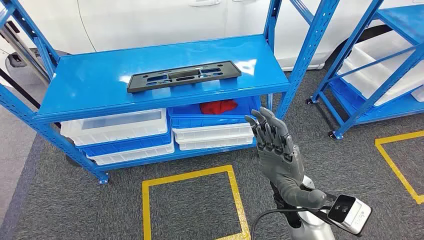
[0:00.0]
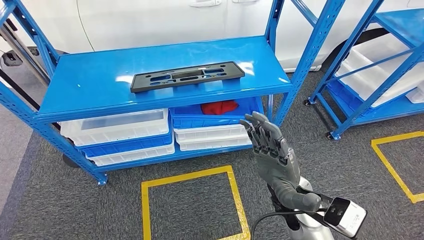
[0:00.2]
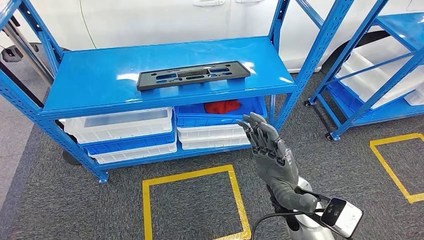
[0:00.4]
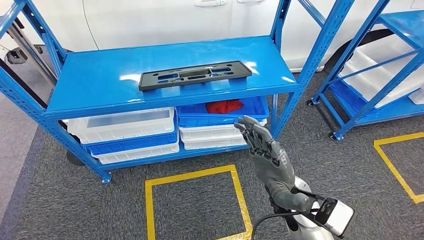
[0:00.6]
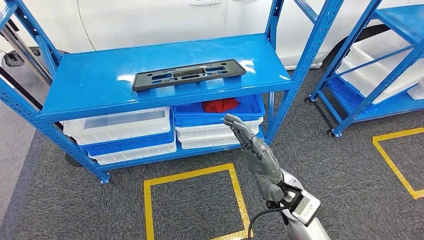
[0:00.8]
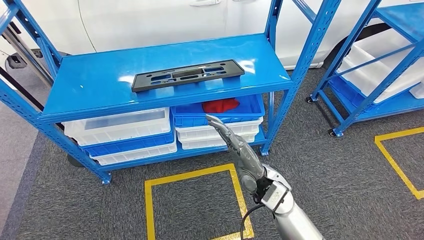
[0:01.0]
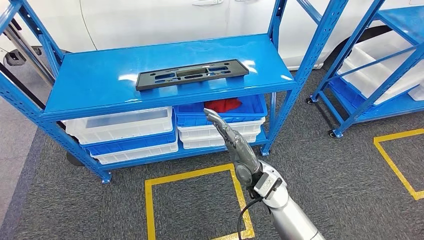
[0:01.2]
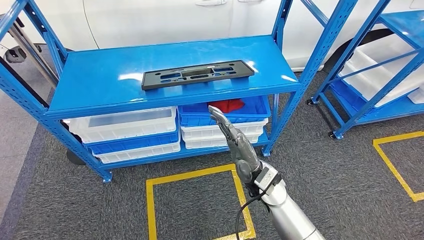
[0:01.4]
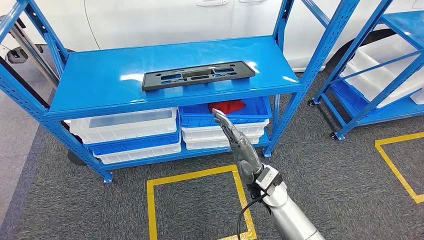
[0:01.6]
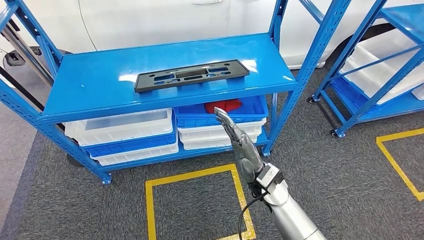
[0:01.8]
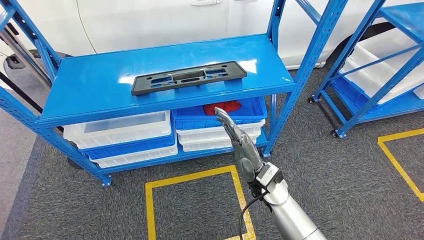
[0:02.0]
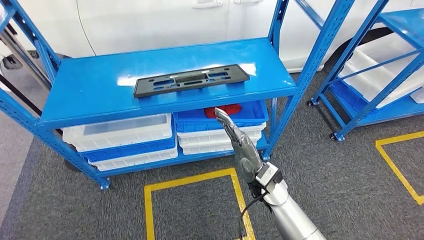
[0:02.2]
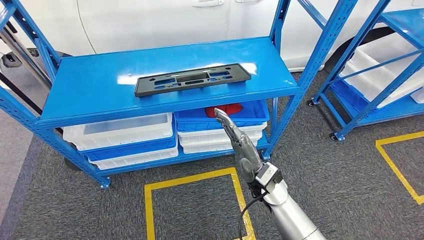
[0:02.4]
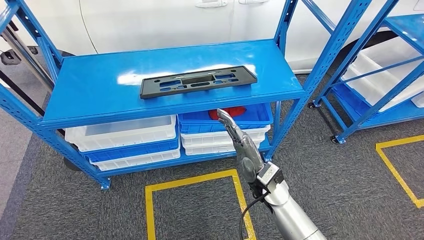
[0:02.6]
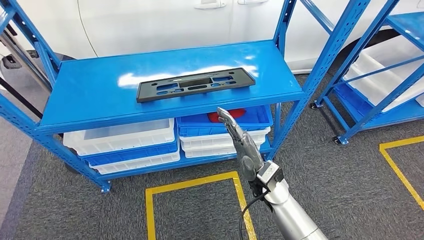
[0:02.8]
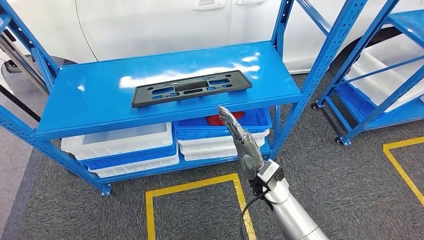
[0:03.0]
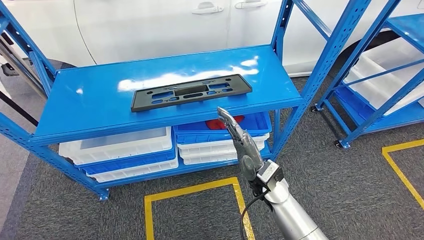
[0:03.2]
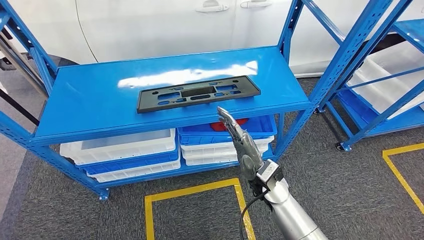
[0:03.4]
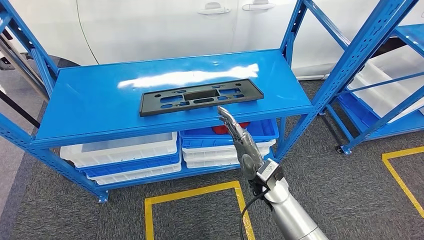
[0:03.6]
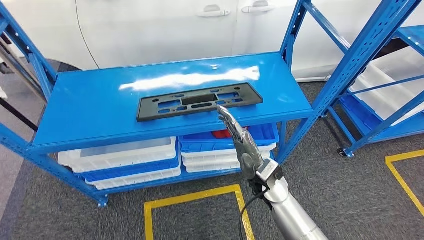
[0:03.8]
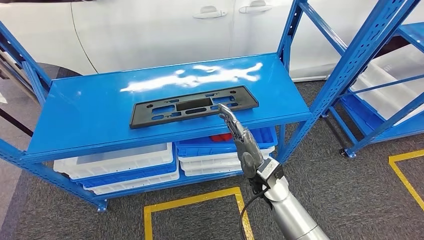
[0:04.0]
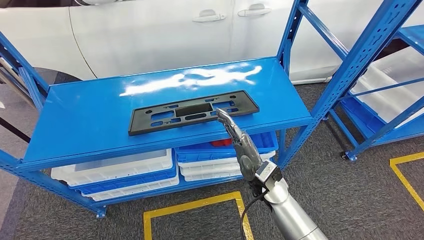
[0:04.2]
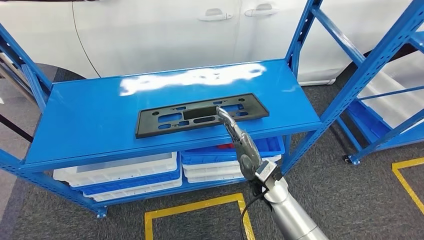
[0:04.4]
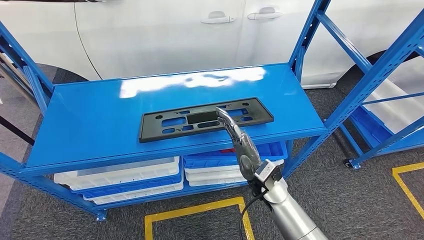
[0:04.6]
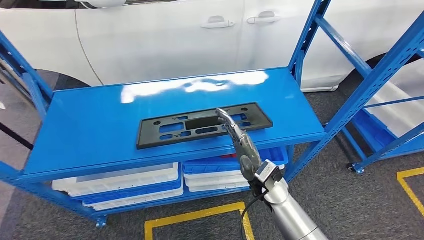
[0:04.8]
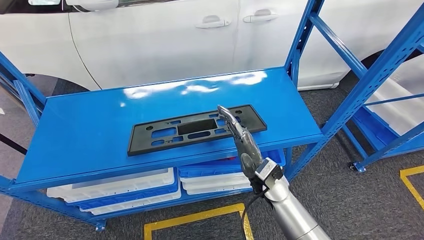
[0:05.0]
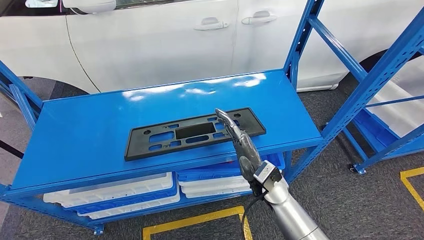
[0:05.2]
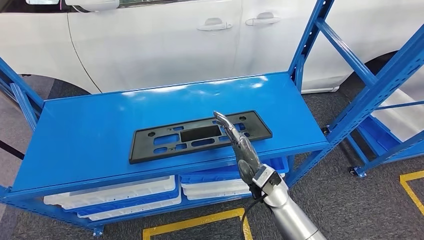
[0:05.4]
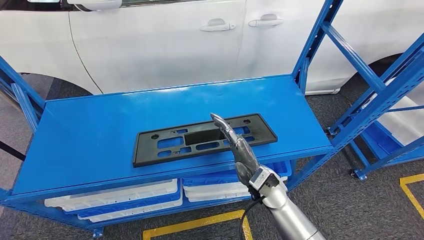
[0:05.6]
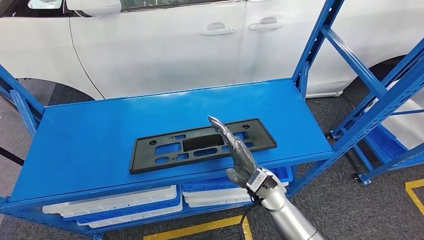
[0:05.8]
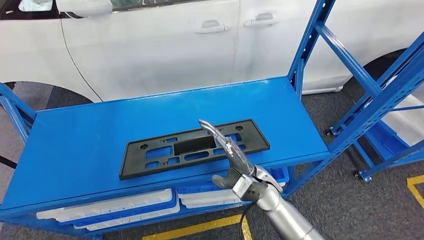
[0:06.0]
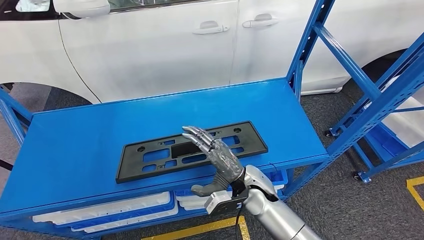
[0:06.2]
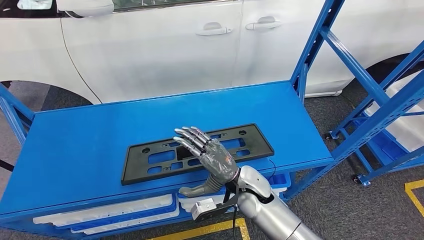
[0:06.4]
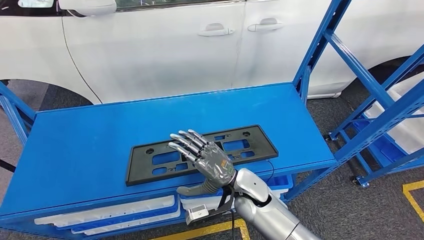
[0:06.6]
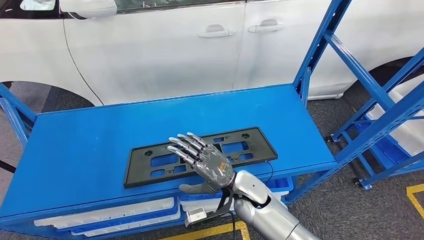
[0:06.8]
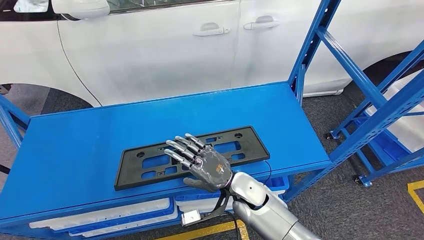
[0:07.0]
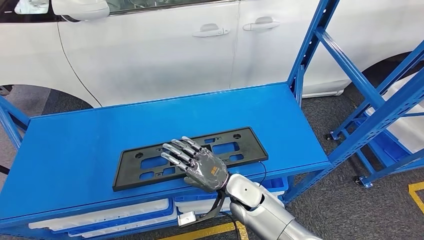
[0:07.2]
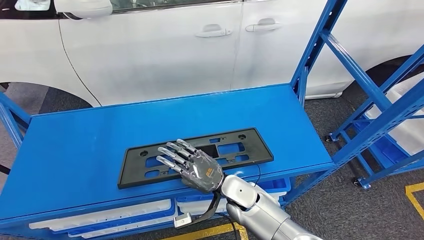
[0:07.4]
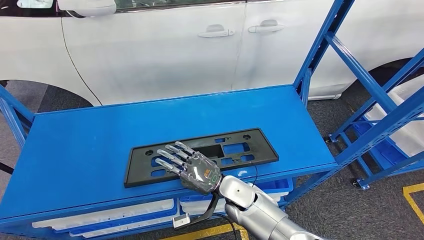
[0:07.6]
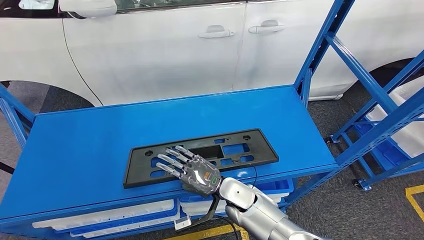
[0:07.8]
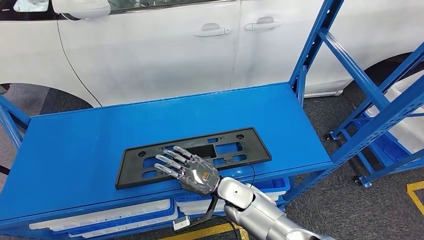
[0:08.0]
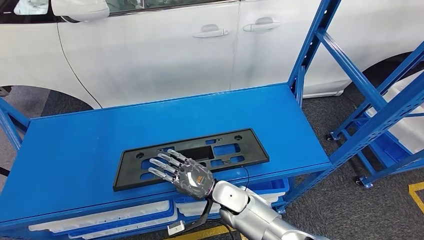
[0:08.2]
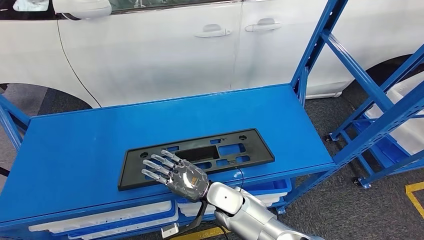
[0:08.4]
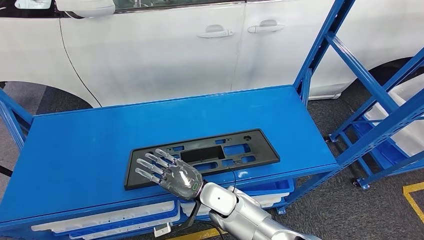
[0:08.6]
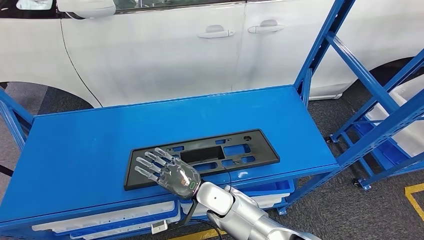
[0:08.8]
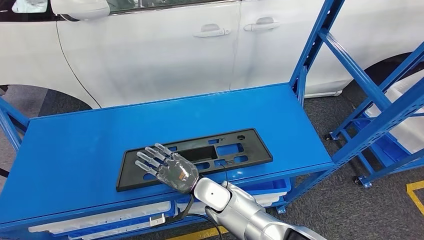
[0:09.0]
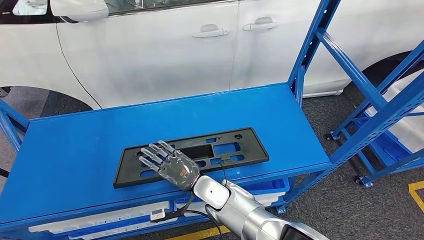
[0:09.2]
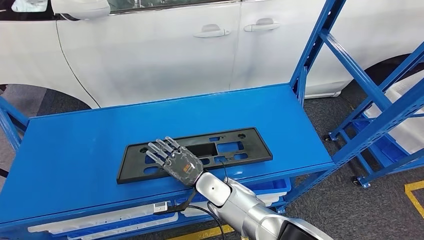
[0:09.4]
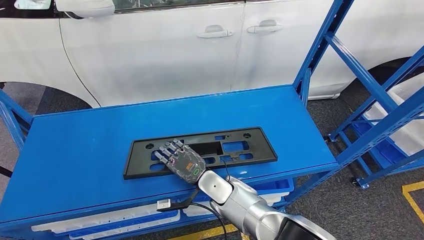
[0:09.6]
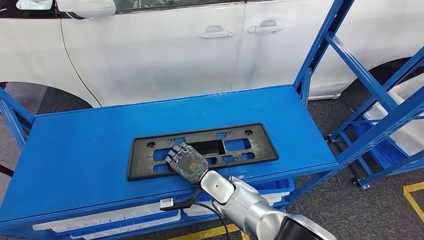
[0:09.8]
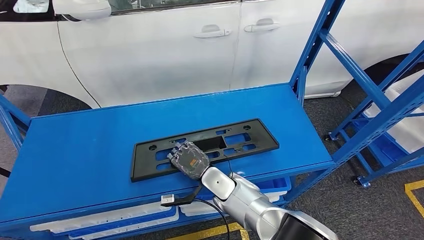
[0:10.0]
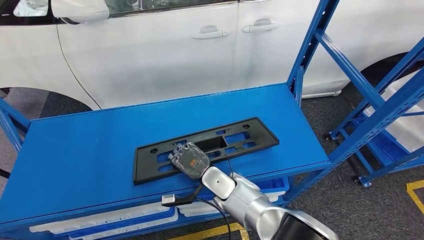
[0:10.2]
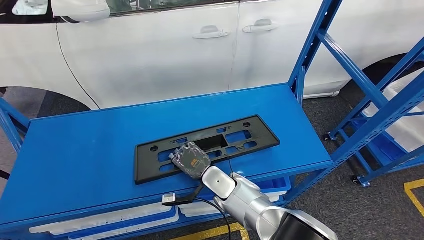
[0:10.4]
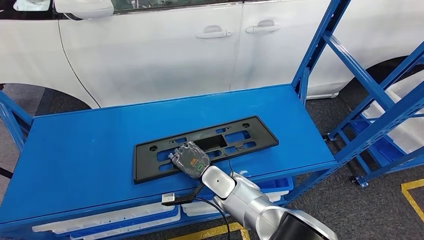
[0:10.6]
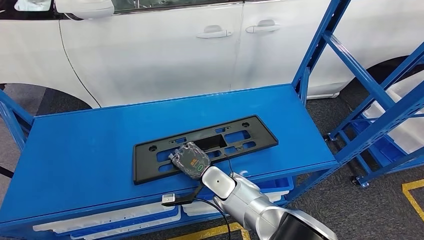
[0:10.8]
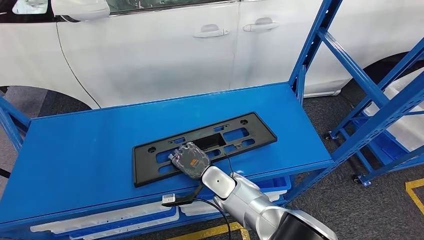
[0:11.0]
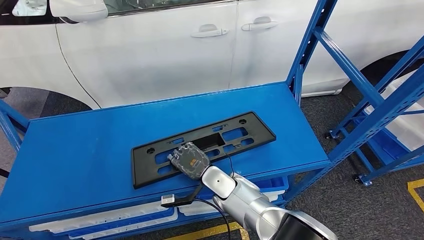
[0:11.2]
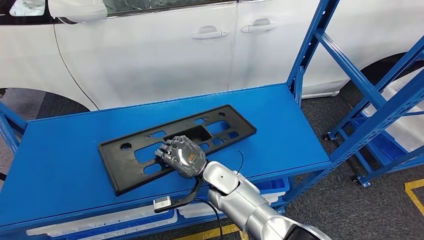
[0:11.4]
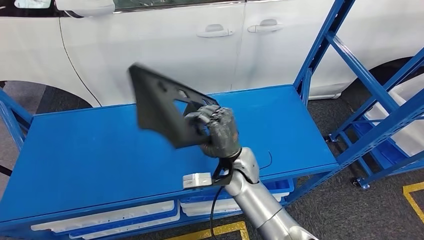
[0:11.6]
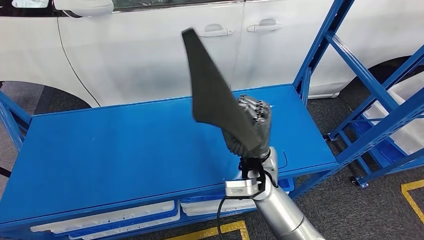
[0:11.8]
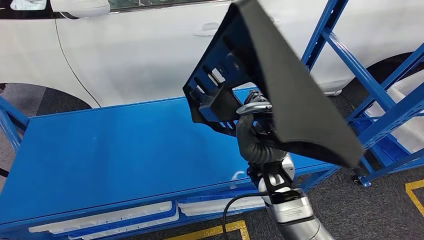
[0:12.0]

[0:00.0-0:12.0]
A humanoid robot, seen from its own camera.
0:09.0 to 0:10.4: The hands make only small movements.

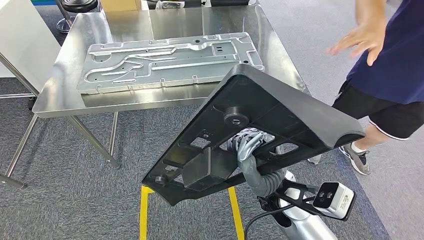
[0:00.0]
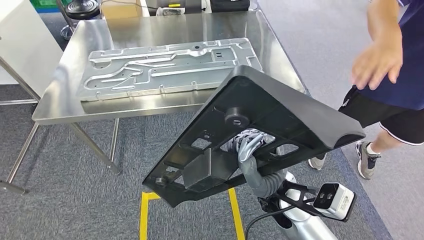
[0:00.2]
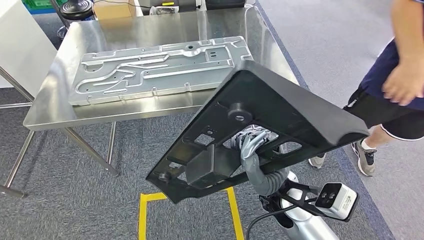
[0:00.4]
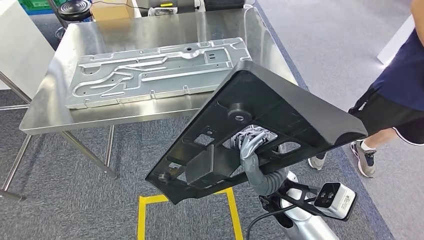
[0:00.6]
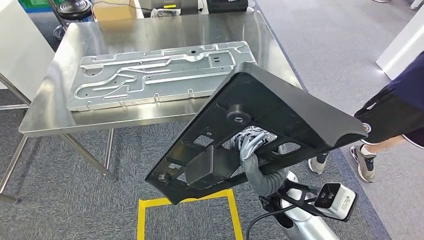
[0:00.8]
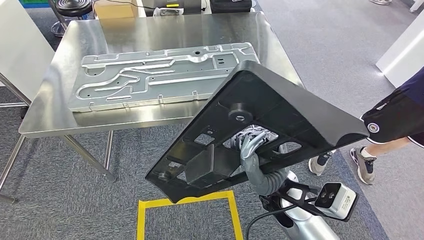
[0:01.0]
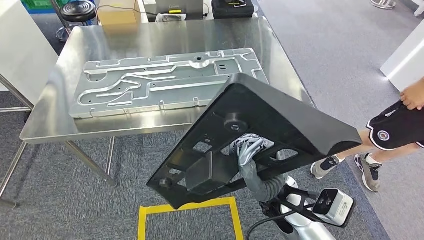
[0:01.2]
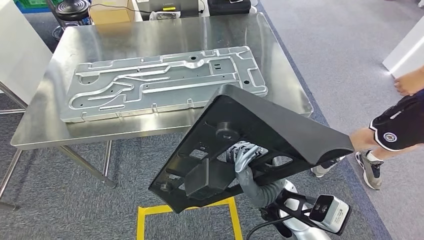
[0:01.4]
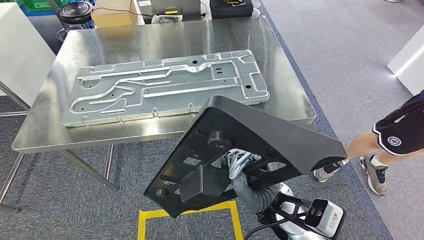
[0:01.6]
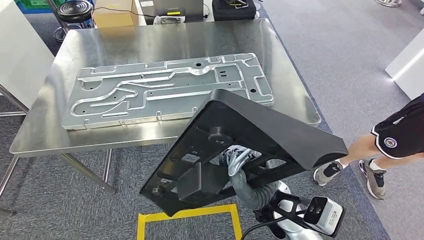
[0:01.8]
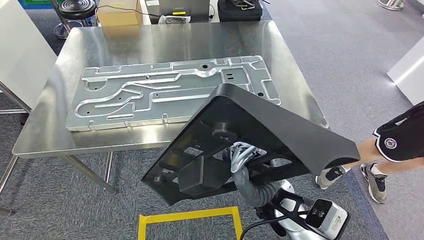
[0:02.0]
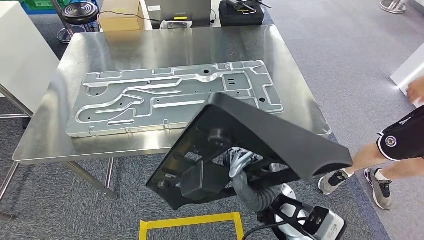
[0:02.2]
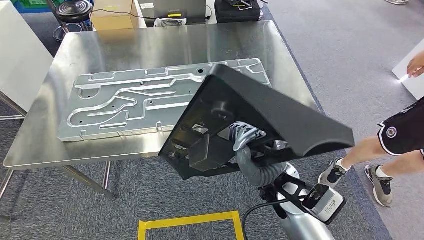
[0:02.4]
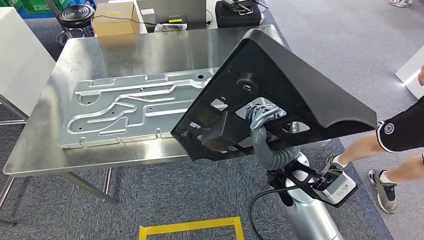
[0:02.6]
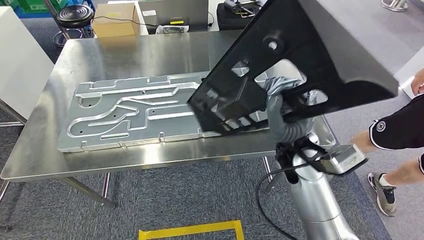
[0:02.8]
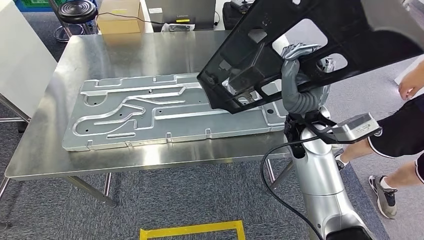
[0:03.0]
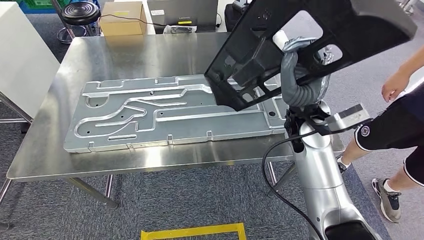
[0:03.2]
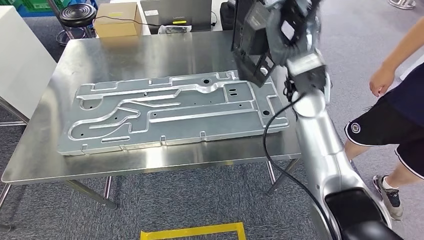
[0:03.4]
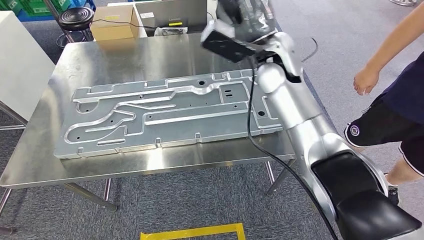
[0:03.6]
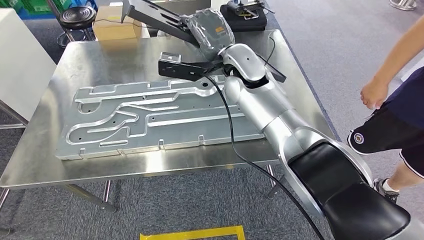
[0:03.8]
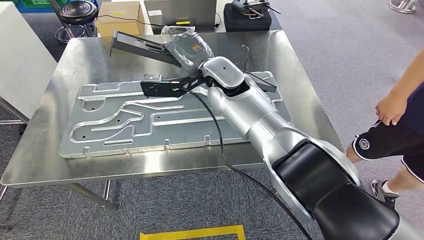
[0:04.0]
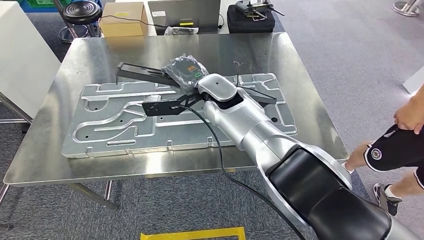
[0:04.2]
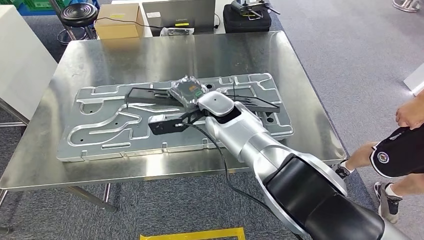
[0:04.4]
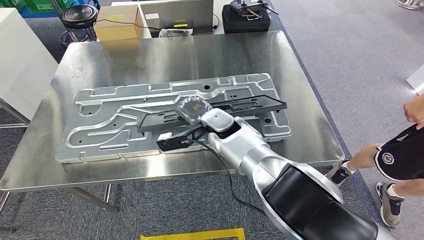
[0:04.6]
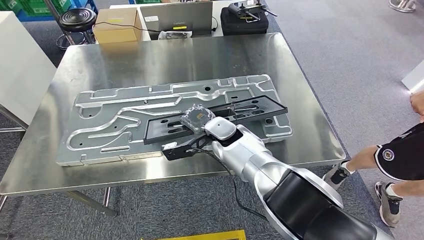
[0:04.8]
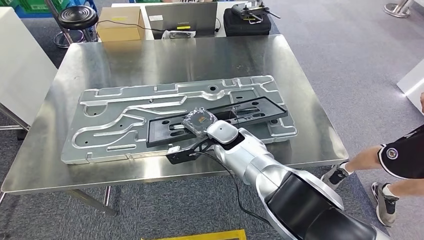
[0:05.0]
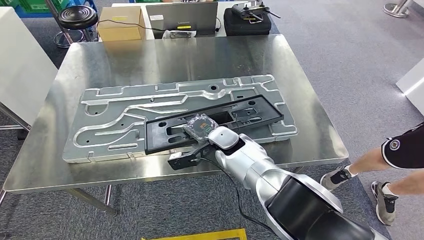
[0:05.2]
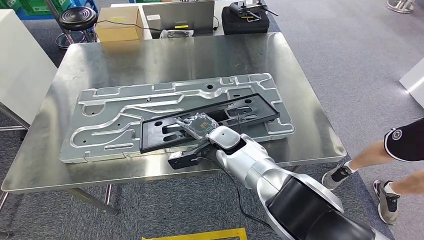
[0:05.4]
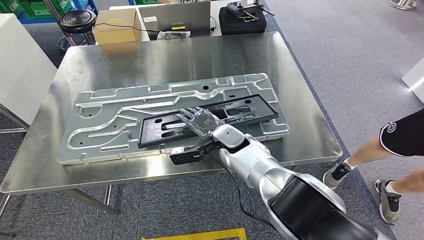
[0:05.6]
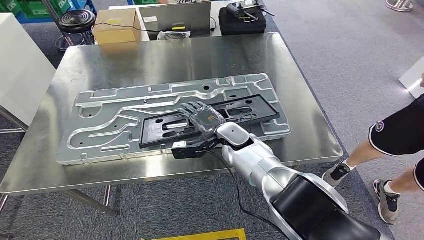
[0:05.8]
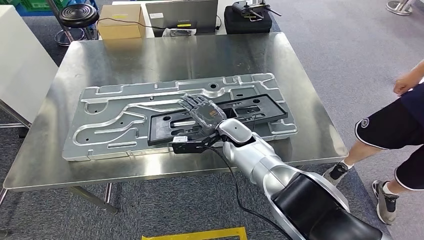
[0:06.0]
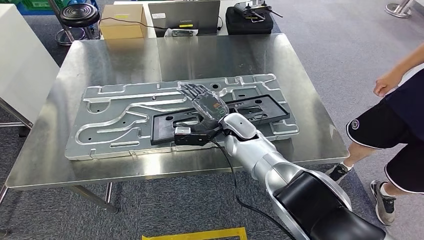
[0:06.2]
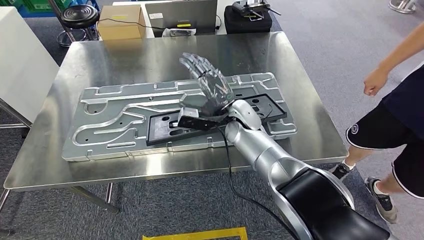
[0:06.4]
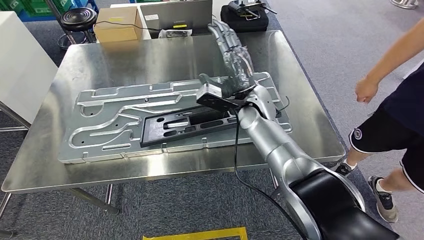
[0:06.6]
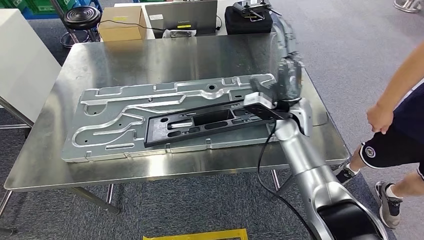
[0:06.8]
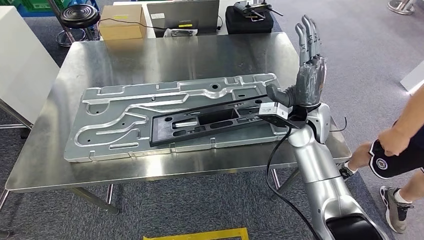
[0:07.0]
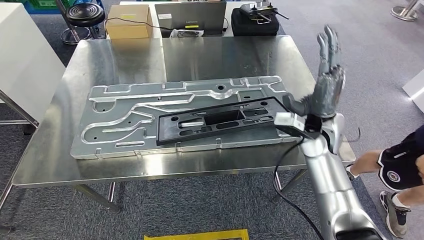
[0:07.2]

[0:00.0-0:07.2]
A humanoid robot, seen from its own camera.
Step, 0:00.0 to 0:03.8: Move the large parts to the workbench.
